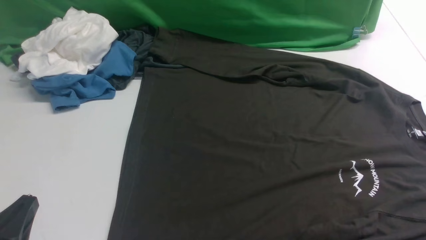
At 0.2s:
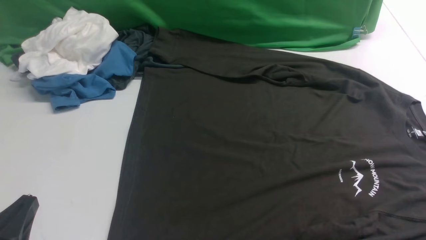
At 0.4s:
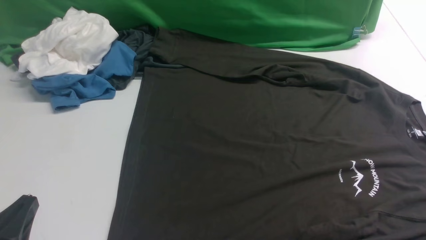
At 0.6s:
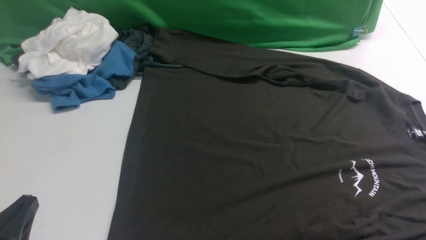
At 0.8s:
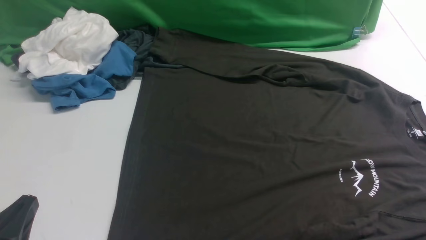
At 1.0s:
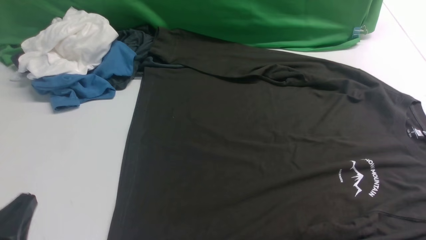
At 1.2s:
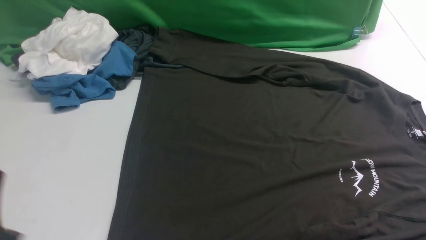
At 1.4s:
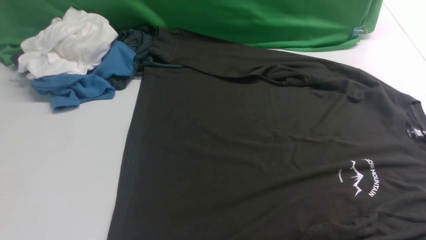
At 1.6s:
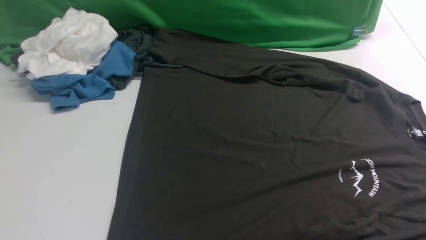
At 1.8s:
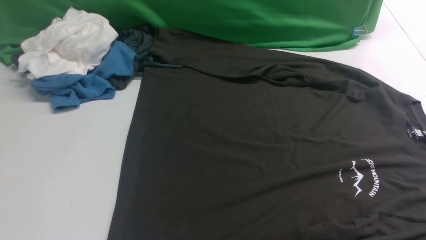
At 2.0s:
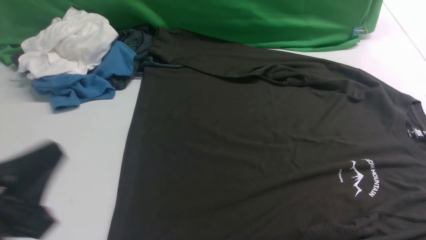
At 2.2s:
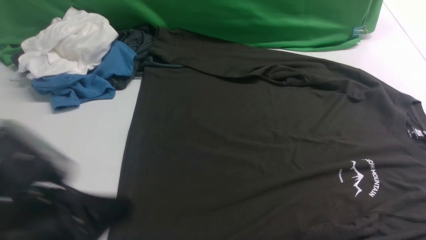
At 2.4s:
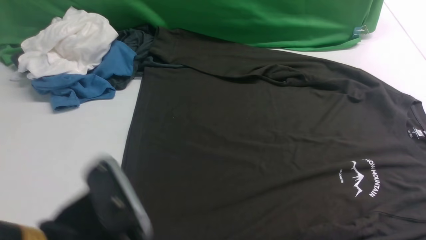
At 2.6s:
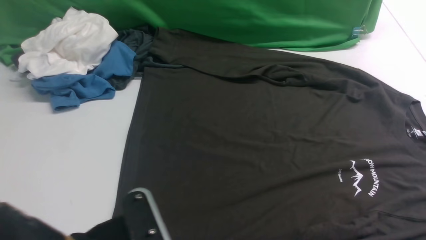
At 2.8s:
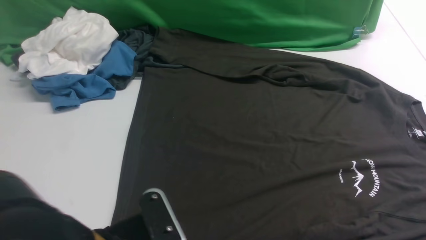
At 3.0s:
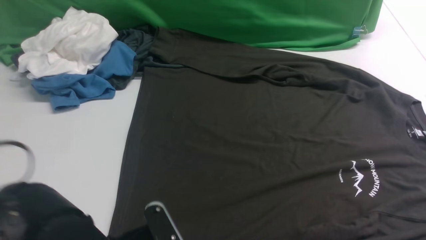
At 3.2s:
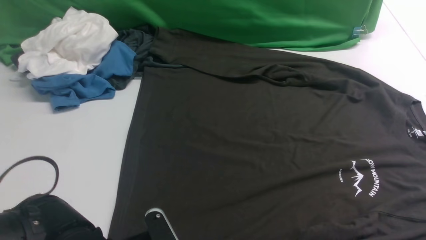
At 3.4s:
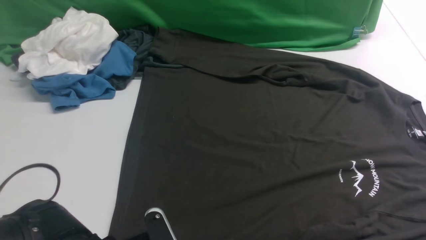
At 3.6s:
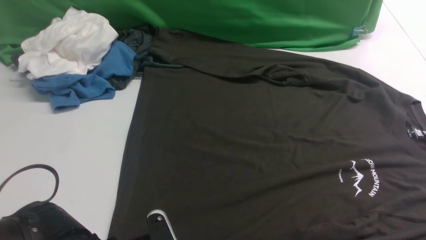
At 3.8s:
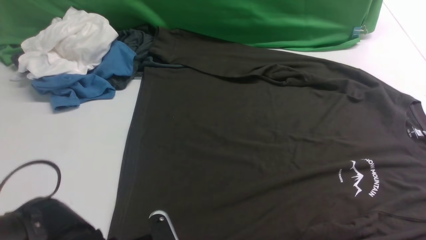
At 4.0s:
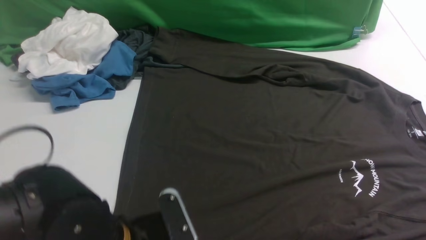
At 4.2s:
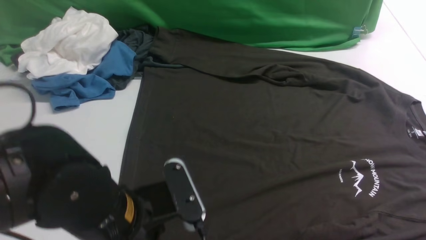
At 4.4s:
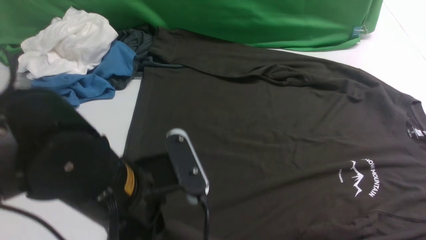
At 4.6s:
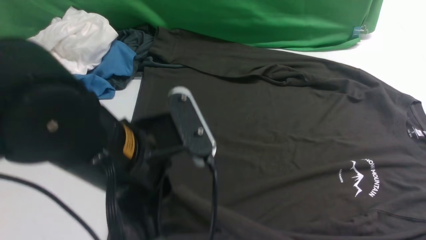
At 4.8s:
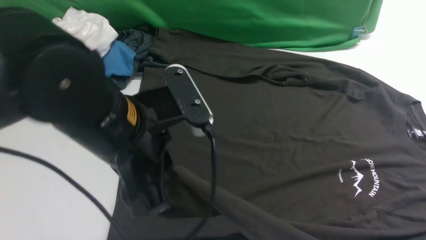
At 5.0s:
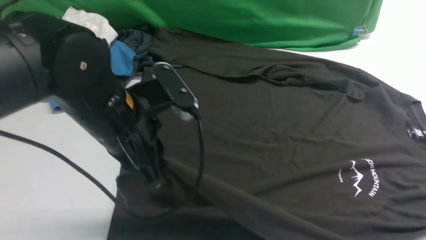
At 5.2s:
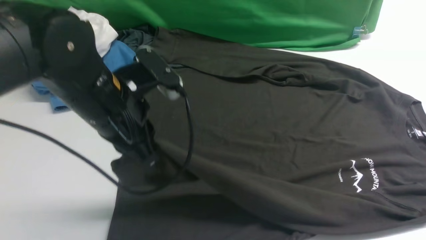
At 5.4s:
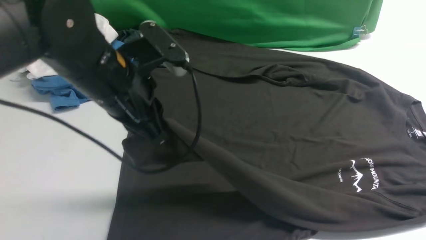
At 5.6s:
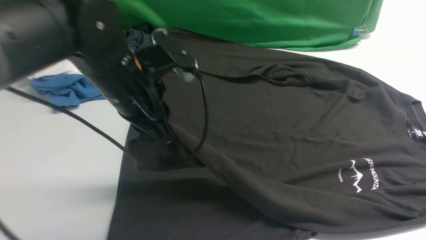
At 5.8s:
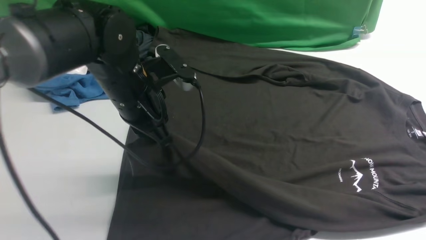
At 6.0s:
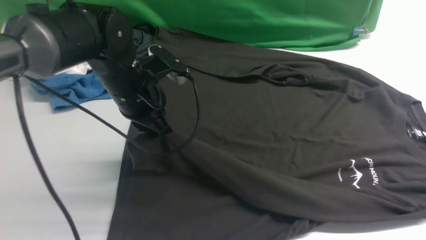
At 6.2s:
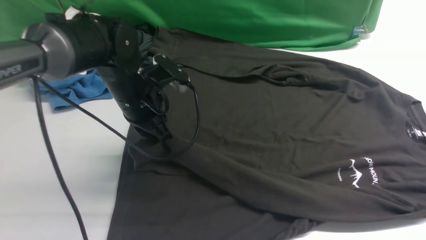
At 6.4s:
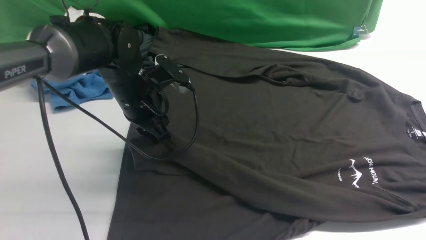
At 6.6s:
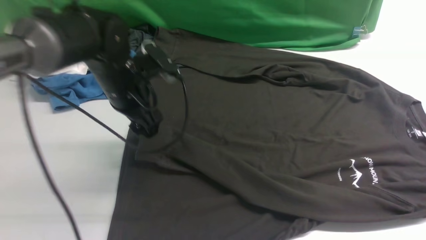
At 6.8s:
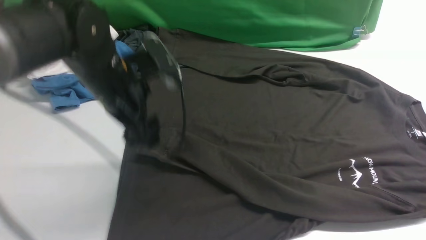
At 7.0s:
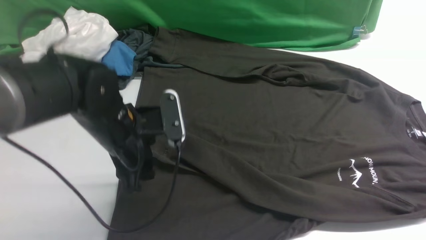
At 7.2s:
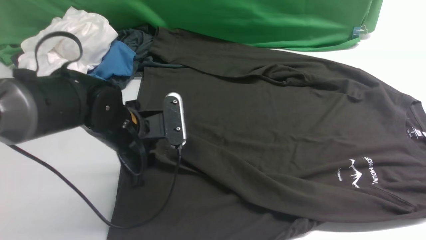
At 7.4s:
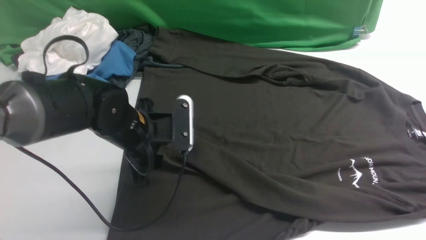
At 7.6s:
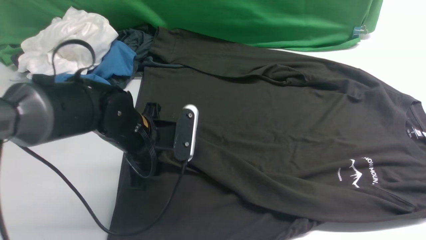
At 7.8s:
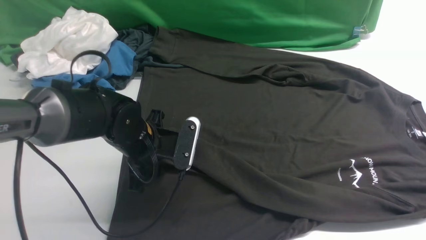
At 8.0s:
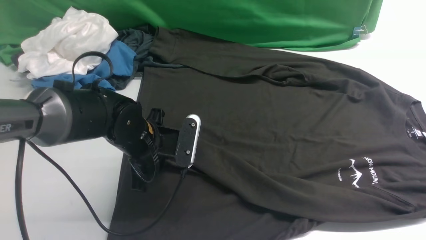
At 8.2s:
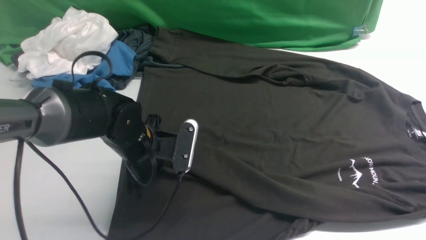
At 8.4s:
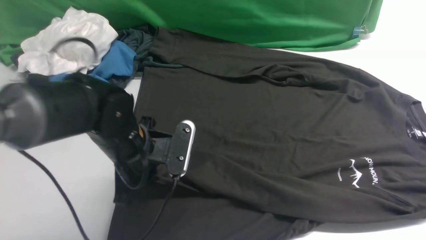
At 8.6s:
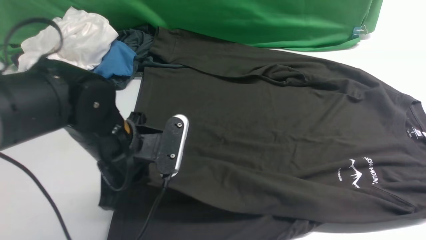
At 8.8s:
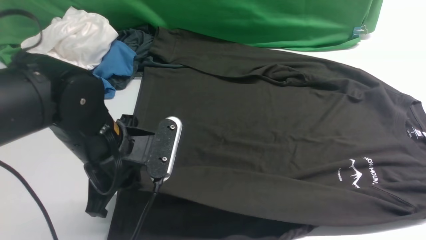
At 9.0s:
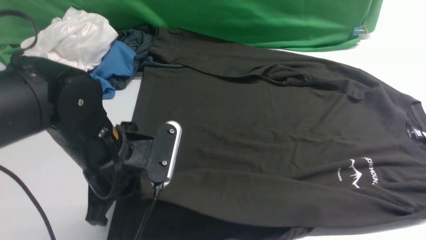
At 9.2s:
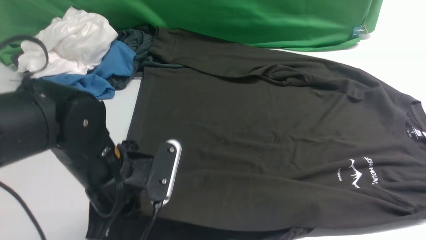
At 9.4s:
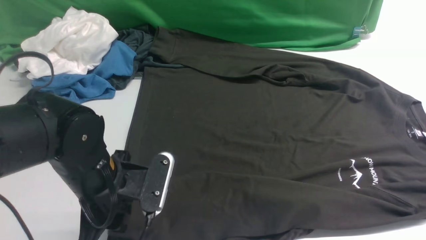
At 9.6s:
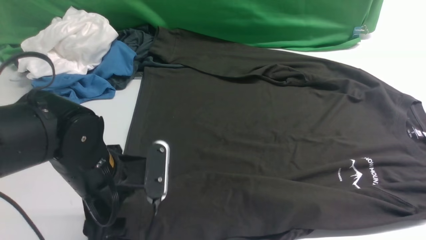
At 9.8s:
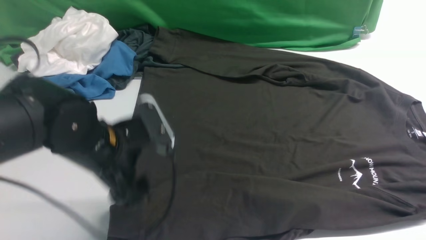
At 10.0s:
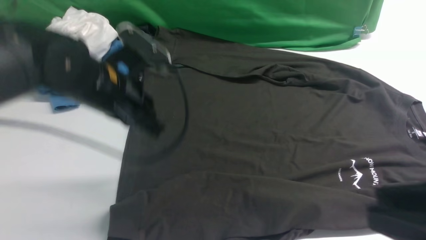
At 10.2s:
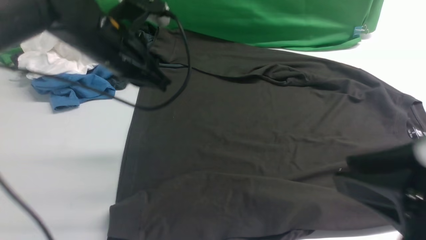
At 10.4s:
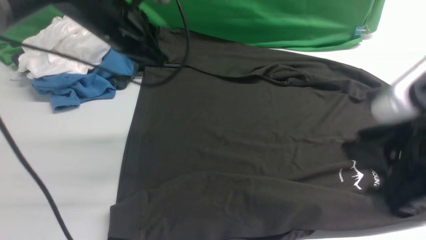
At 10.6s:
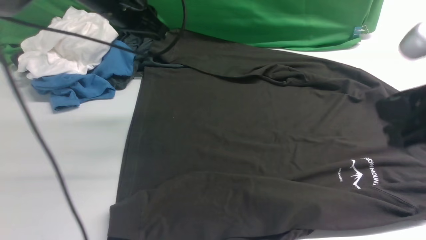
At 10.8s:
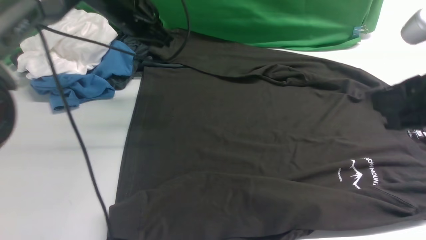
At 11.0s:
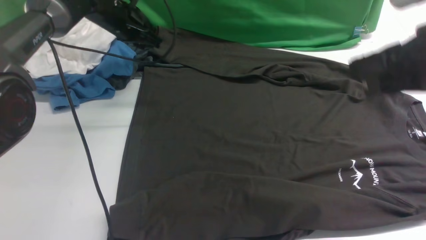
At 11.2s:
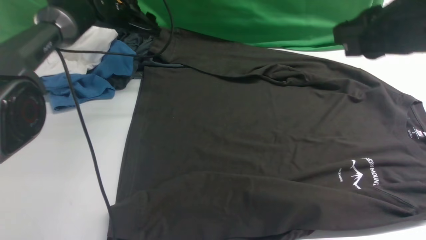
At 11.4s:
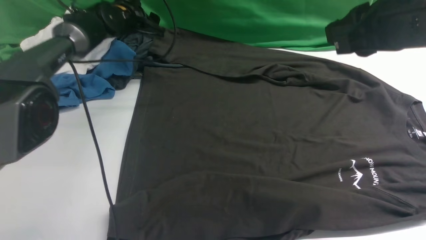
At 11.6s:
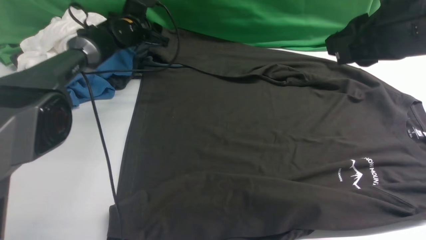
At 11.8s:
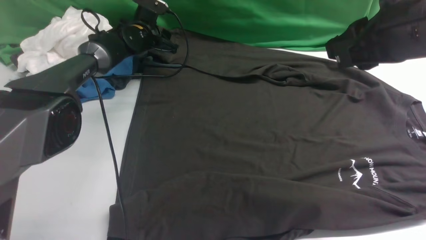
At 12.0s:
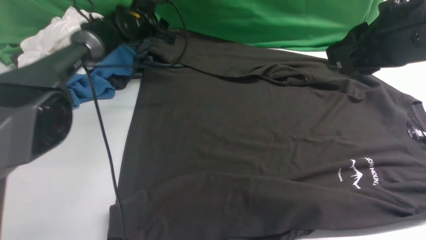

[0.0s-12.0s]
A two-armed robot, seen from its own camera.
Step, 0.0s to 4.4s: use the left arm to clamp the cuff closest to it.
Step, 4.6s to 6.4s: use the left arm to drag and place the cuff at the centered position on the left edge of the fabric.
0.0s to 1.6s: The left gripper ends up some 5 cm from where it was.
1.6s to 3.0s: The left gripper goes approximately 15 cm to the right and forward, and opens up.
3.0s to 4.4s: The left gripper shifts some 10 cm upward, and closes.
4.4s to 6.0s: The left gripper heads forward, covering approximately 20 cm.
6.0s to 7.6s: The left gripper shifts some 5 cm downward, and opens its fingers.
7.6s to 9.0s: The left gripper goes some 10 cm backward and upward, and closes up.
9.0s to 10.4s: The left gripper heads forward and upward, covering some 20 cm, and opens, then closes once more. Meanwhile the right gripper moves forward and to the left, roughly 15 cm.
10.4s to 12.0s: The right gripper heads forward, covering roughly 10 cm. The left gripper travels forward and downward by about 20 cm, and opens up.

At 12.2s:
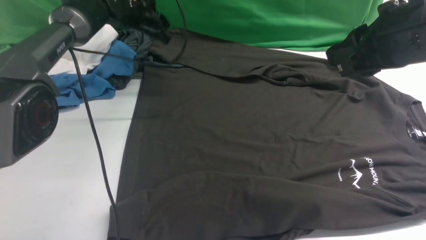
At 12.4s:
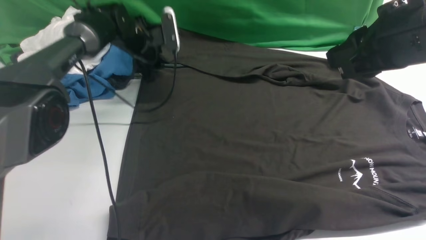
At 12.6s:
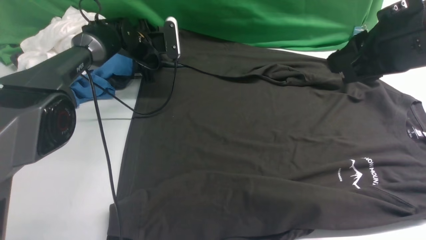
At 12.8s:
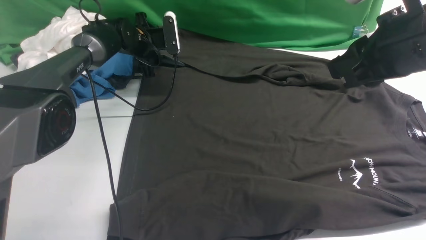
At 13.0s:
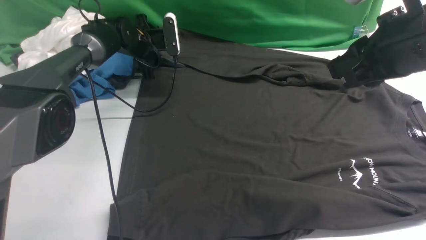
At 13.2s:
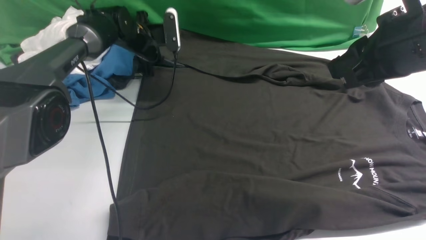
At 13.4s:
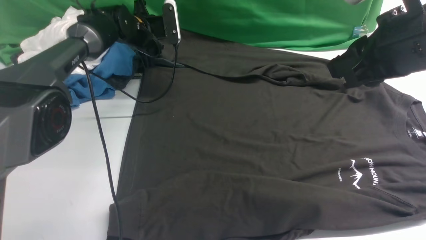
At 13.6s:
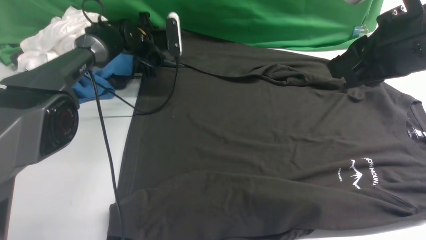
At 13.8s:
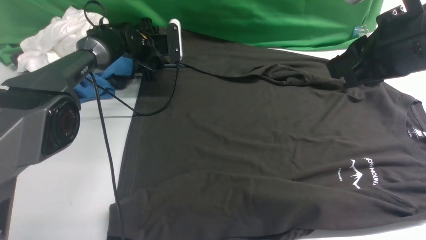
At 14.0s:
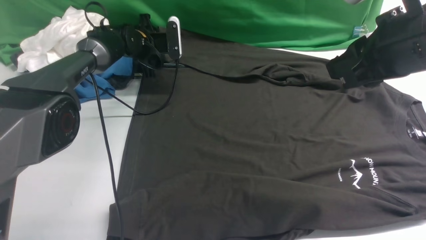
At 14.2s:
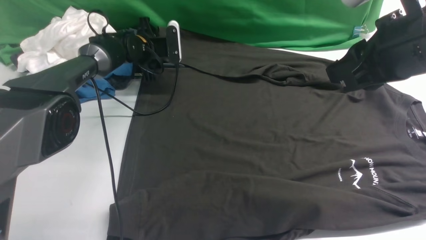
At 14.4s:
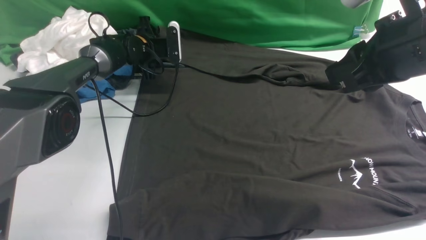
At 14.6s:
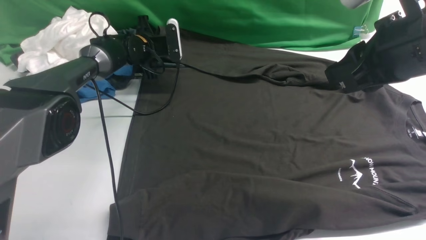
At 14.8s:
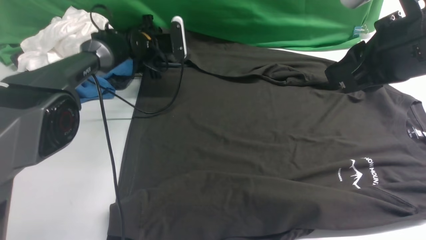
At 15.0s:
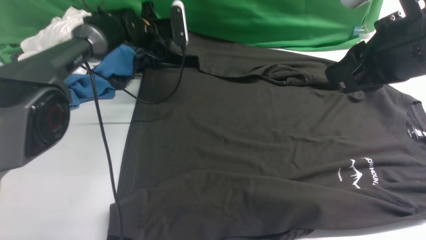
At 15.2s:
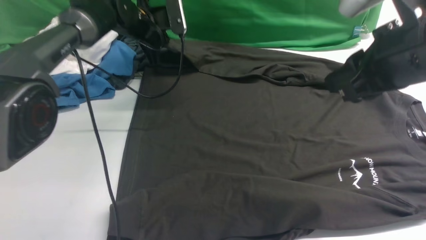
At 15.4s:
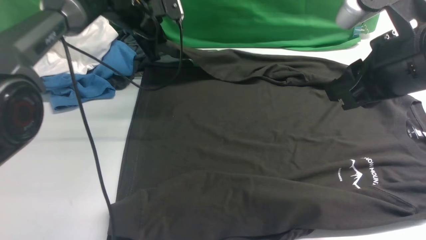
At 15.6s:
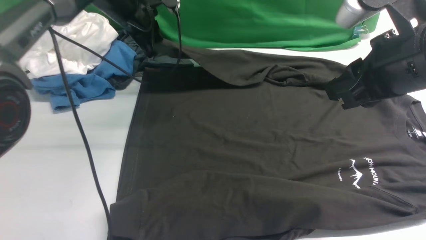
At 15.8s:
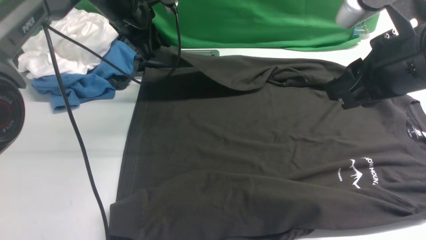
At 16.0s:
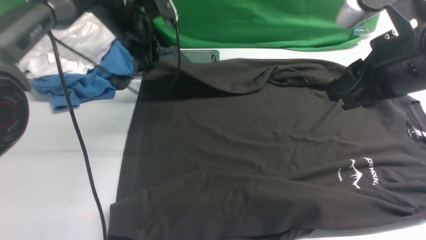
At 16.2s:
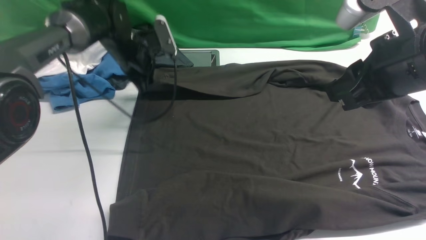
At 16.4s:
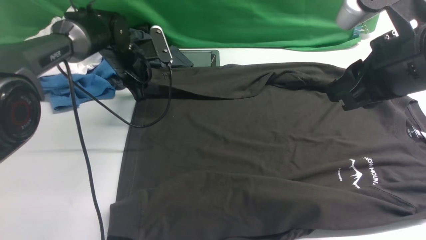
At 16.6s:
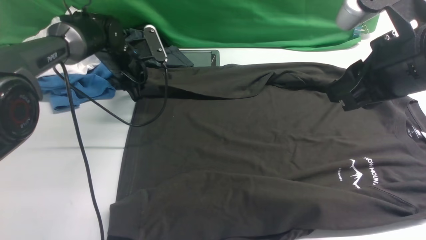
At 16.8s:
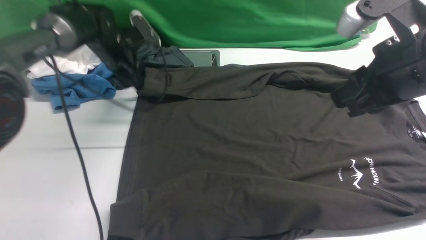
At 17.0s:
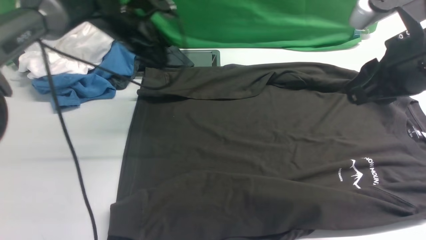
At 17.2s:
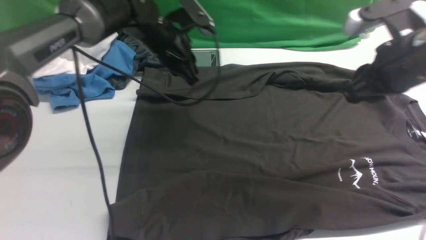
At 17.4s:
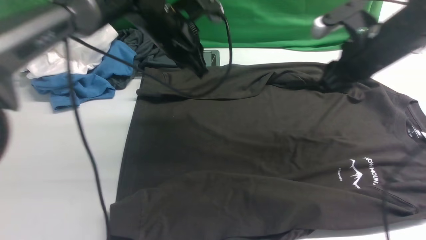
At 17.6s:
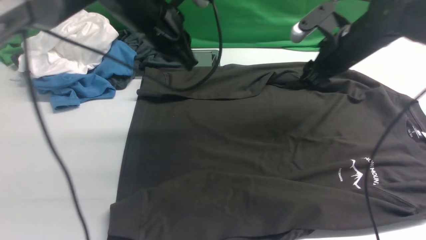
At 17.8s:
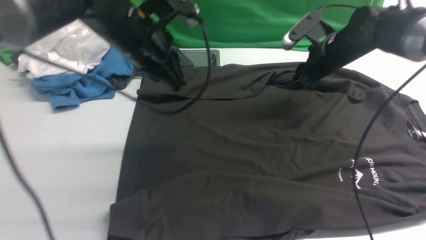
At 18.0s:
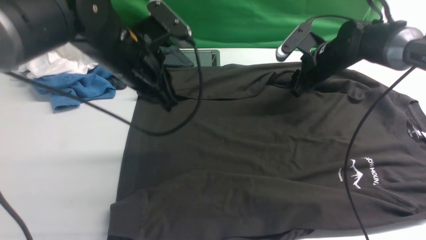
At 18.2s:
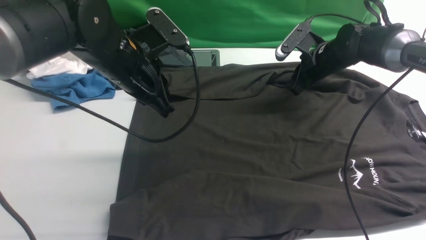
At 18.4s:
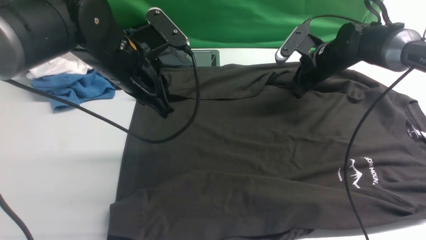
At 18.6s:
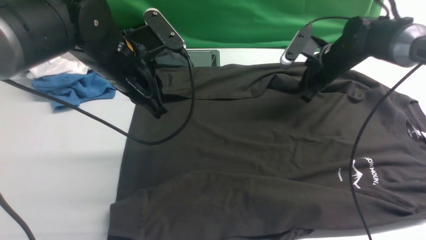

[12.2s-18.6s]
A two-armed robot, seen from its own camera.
Step, 12.2s to 15.0s: use the left arm to clamp the cuff farthest from it.
Step, 15.4s to 16.8s: use the left arm to drag and place the cuff at the centered position on the left edge of the fabric.
12.2s to 13.8s: The left gripper ends up some 5 cm from where it was.
13.8s to 15.4s: The left gripper moves upward and backward, some 10 cm, and closes its fingers.
15.4s to 17.0s: The left gripper reaches about 10 cm downward, then returns, and opens its fingers.
17.0s to 18.6s: The left gripper travels backward by roughly 15 cm, and closes up. The right gripper goes roughly 25 cm forward and downward, and closes up.
